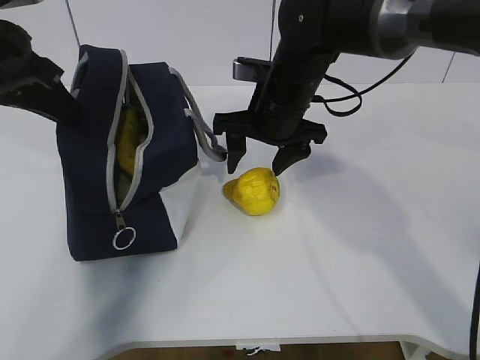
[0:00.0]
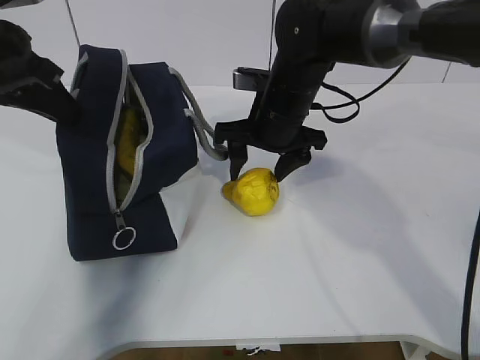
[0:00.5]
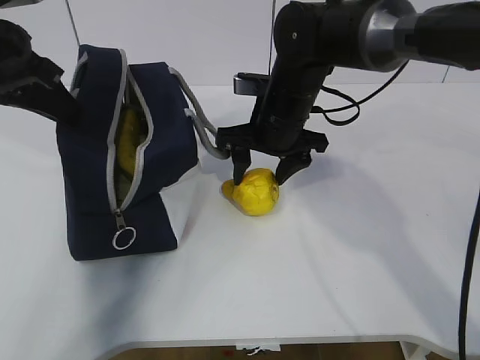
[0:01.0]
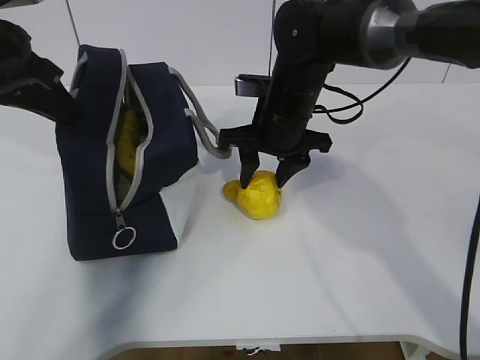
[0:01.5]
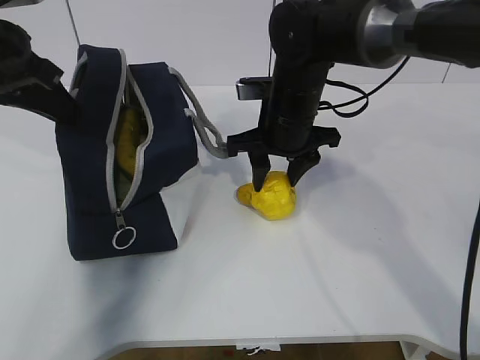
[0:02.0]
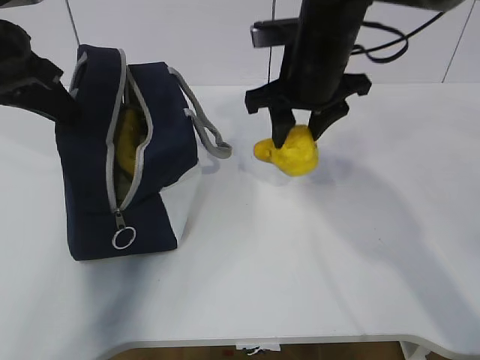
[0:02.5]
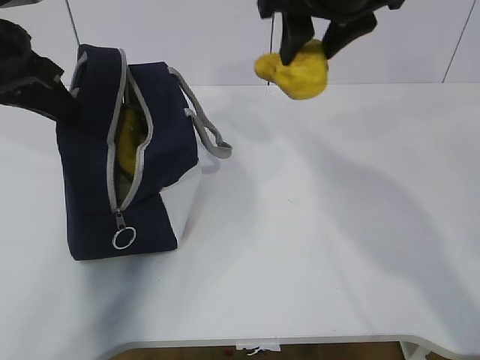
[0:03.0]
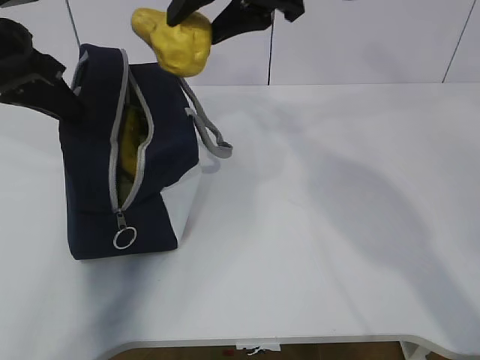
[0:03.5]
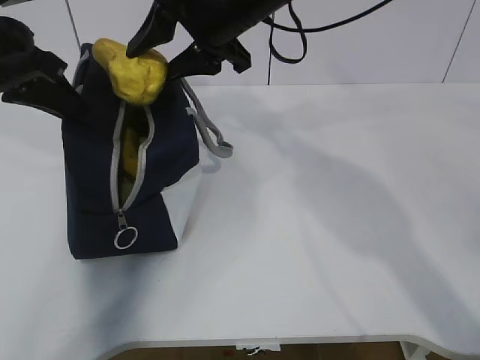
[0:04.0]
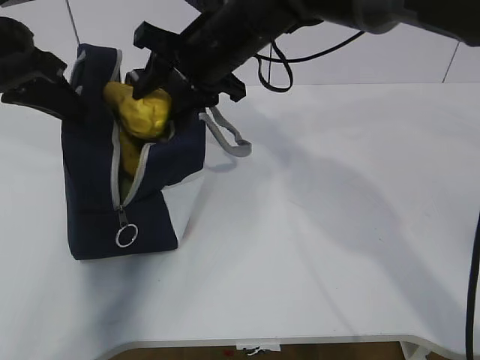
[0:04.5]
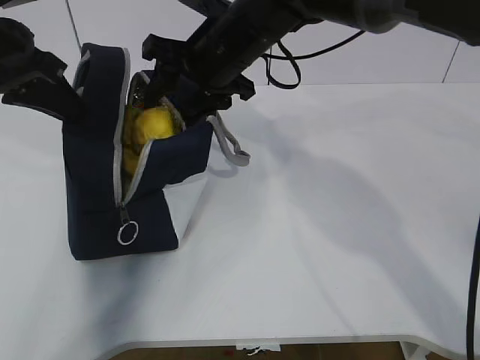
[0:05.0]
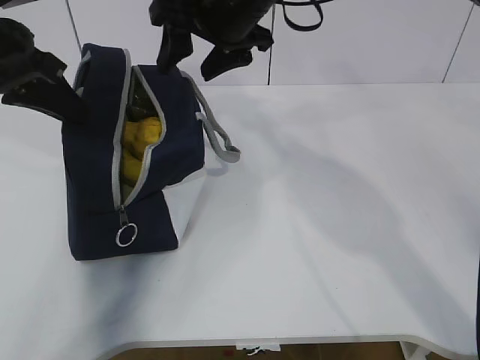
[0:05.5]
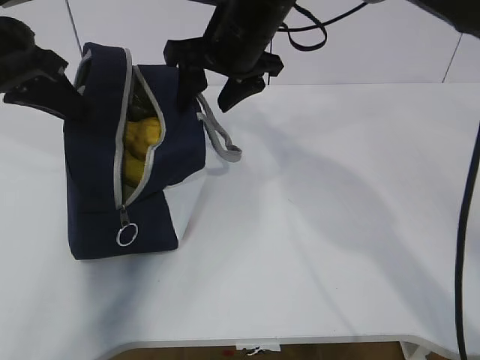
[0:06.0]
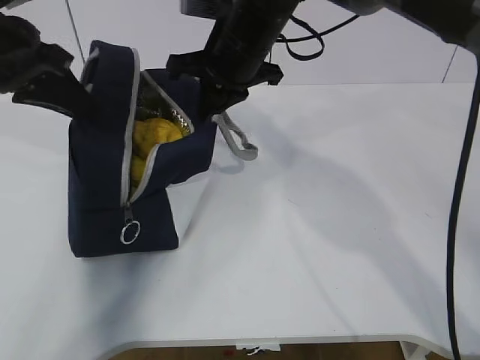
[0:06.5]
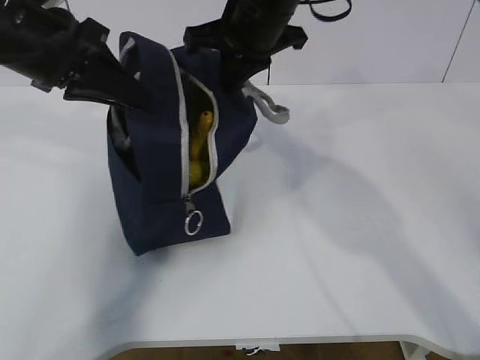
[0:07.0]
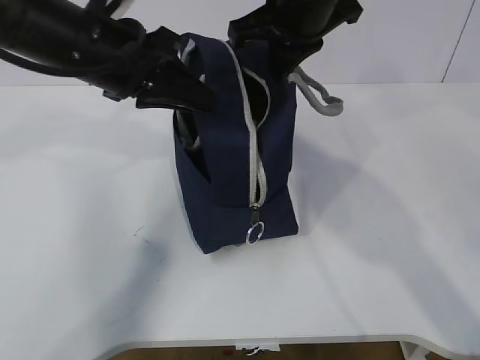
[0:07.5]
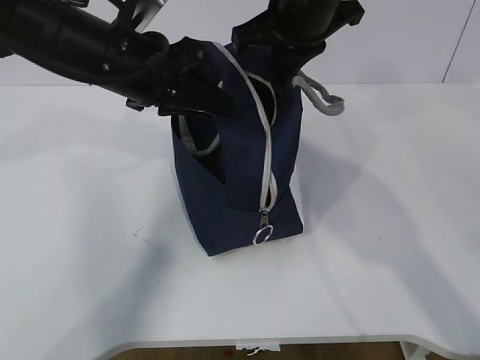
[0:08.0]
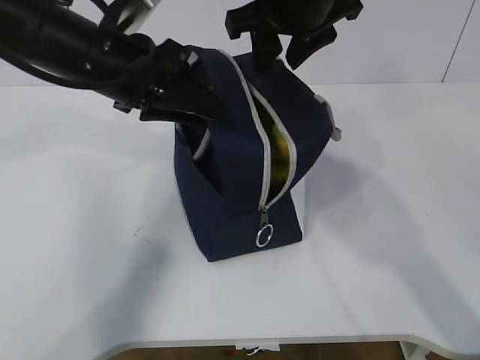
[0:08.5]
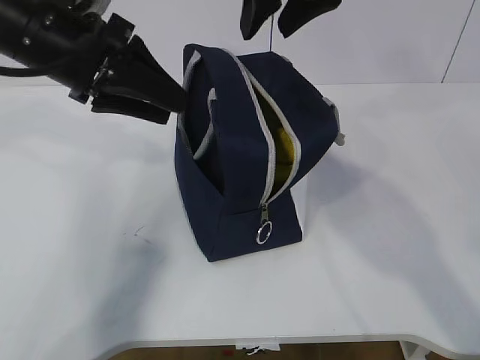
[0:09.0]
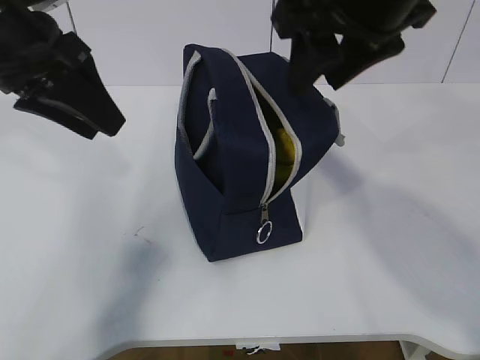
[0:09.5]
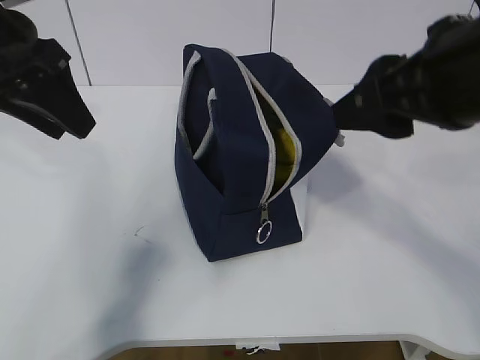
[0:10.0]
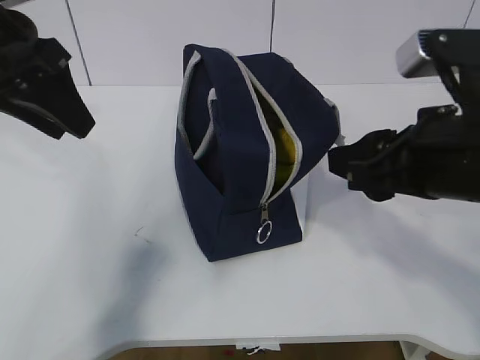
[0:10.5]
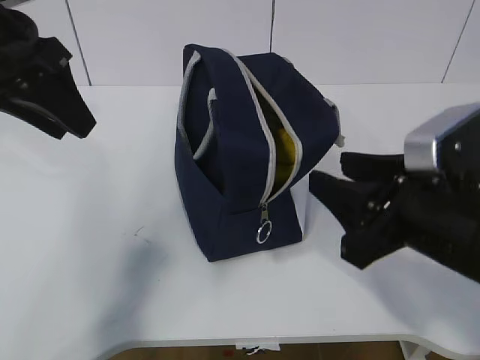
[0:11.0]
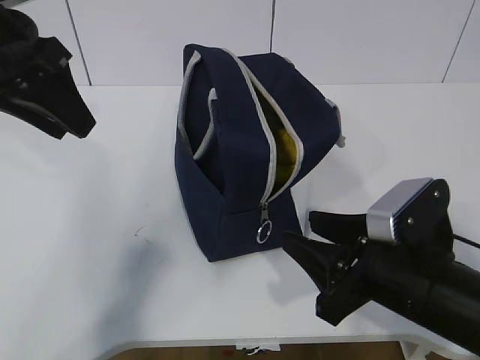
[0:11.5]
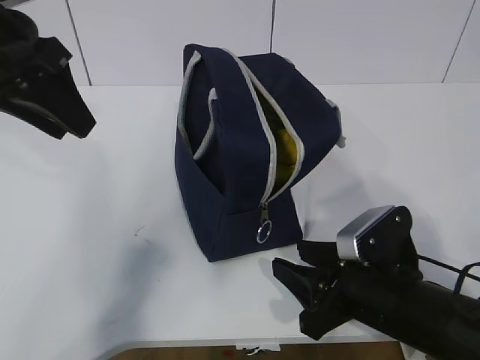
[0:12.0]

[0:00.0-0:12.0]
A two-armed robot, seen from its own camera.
Step, 0:02.0 to 0:05.0: Place the pear into the package with the right gripper.
0:00.0 to 0:02.0: The grippers make only small movements.
0:02.0 to 0:04.0: The right gripper shifts roughly 15 cm upward and to the left.
0:06.0 to 0:08.0: The right gripper is displaced to the right by approximately 5 cm, and closes; the left gripper goes approximately 10 cm to the right.
0:08.0 to 0:10.0: The right gripper shifts some 20 cm backward and to the right, and opens up; the left gripper travels to the left and upward by about 10 cm, and opens up.
0:10.0 to 0:12.0: The right gripper is displaced downward by approximately 25 cm.

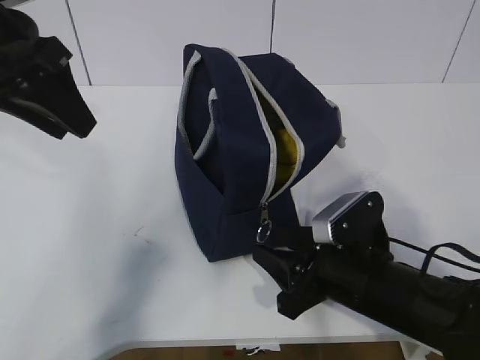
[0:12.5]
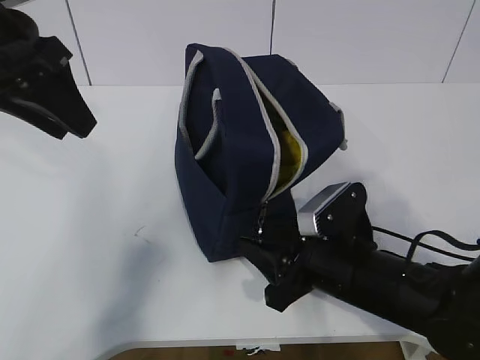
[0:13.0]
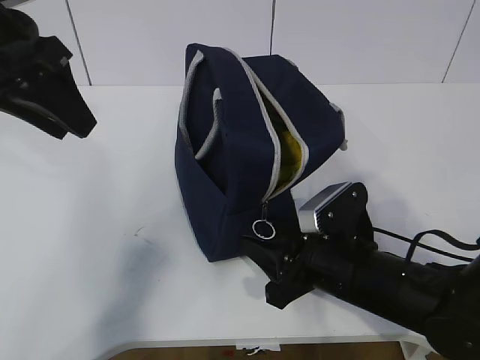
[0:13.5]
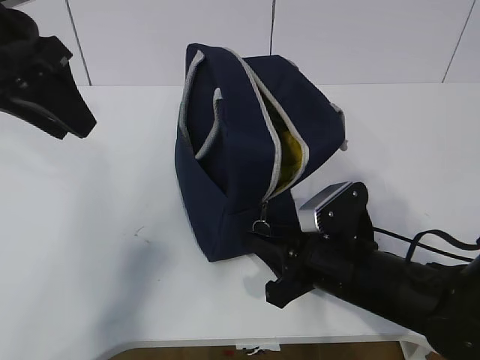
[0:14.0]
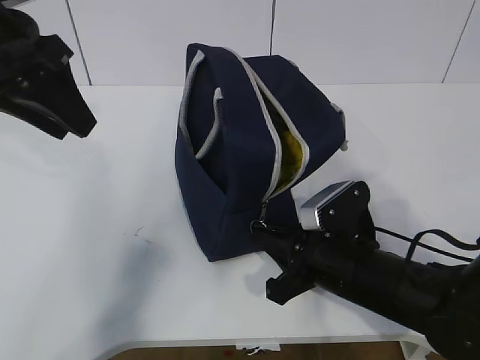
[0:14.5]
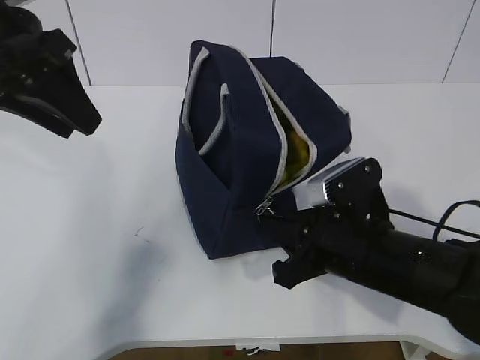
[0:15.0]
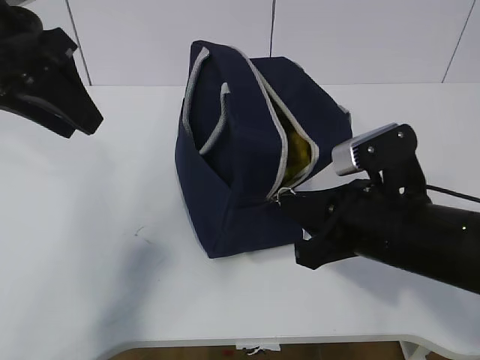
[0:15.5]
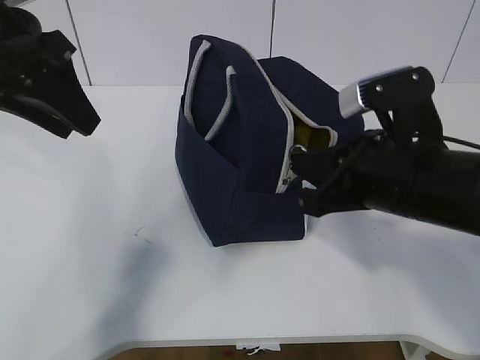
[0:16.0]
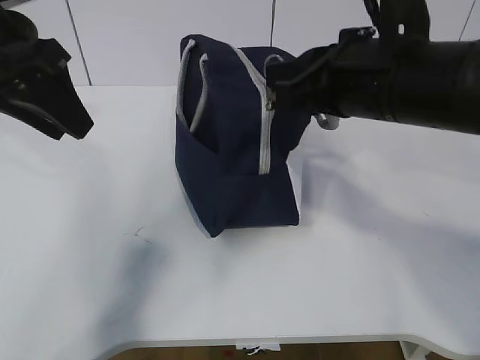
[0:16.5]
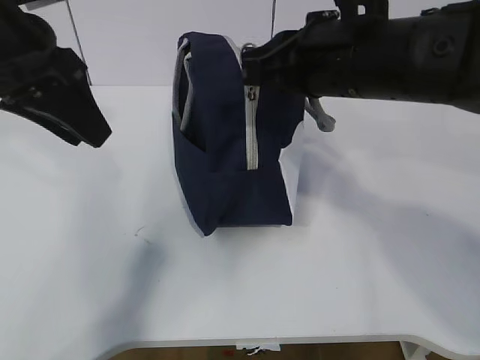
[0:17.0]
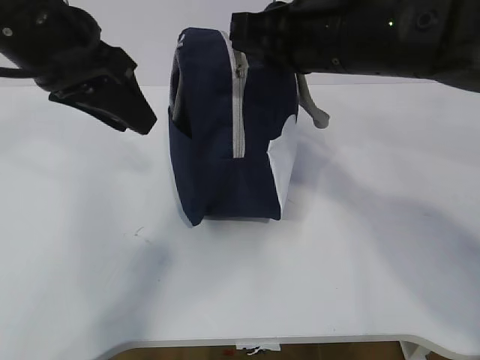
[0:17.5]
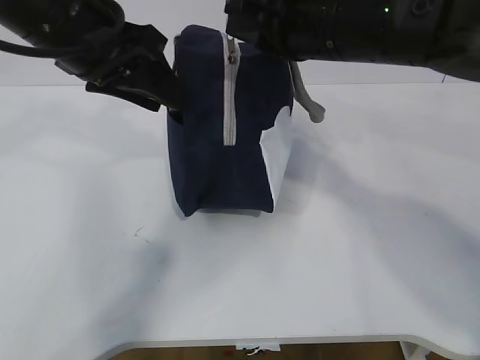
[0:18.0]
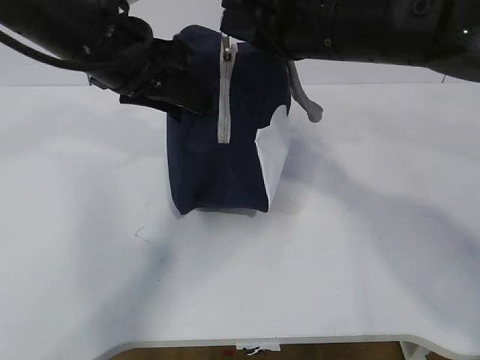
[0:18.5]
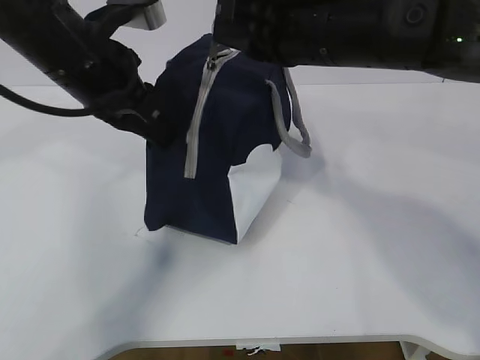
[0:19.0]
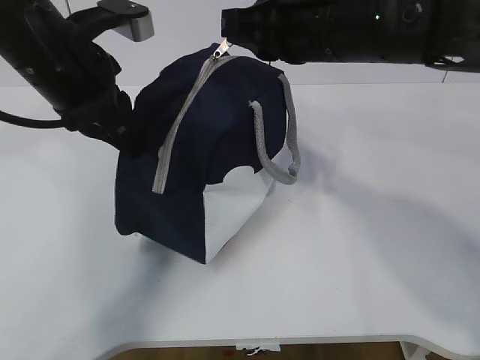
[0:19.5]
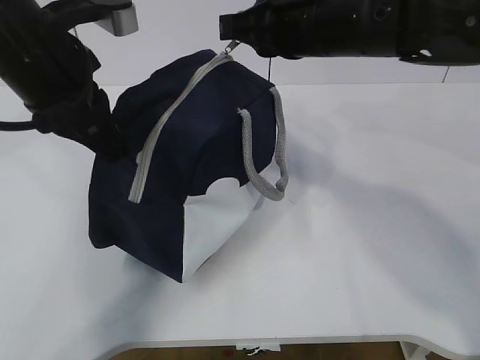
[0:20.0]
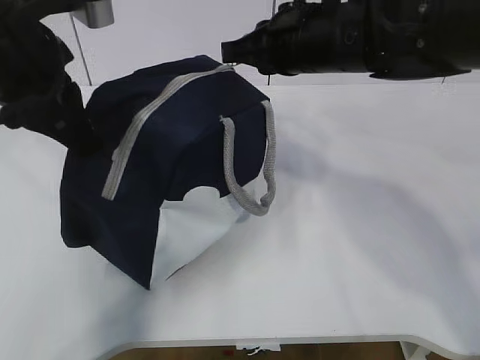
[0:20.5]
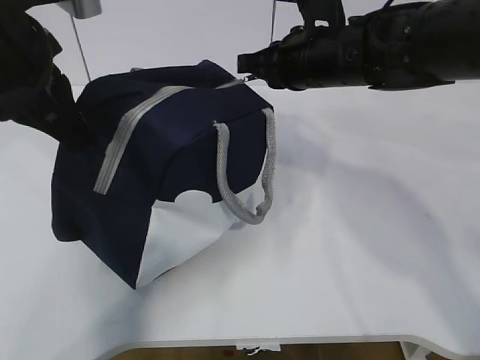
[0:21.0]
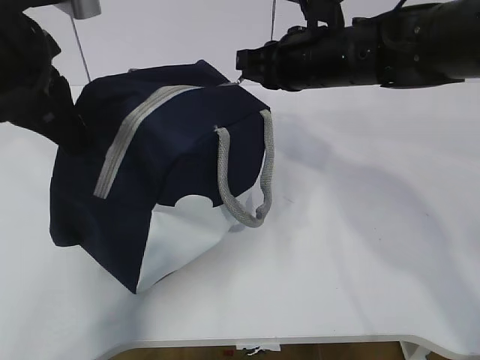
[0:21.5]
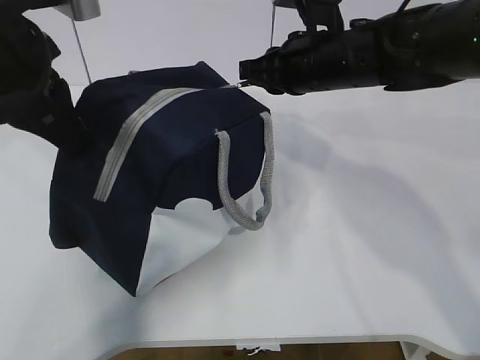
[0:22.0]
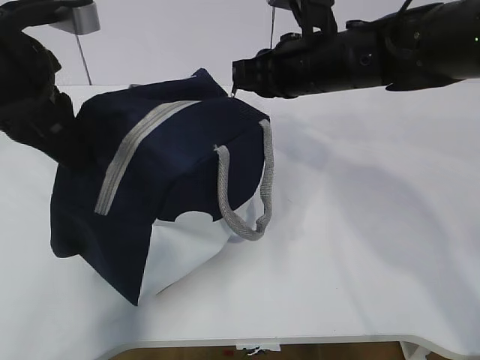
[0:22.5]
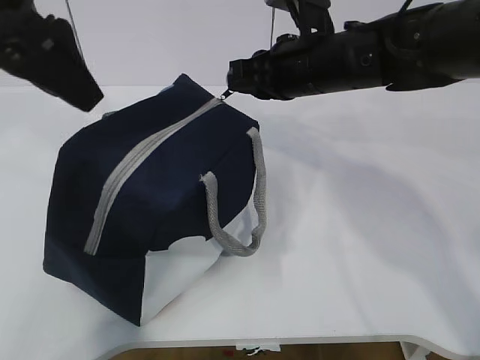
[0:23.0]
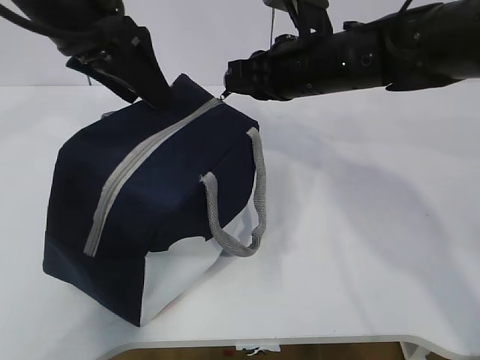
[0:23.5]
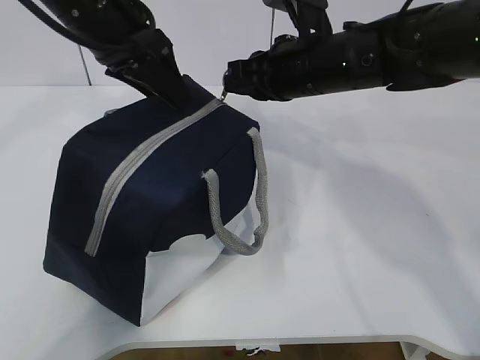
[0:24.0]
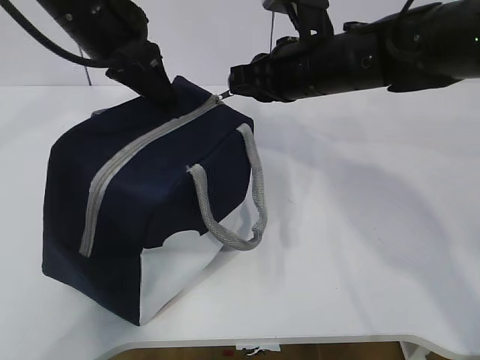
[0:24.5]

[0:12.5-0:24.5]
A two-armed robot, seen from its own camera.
0:12.5 to 0:14.5: The right gripper closes.
0:14.5 to 0:16.5: The right gripper goes approximately 20 cm upward.
0:16.5 to 0:18.5: The left gripper moves to the right, roughly 10 cm. The right gripper moves about 5 cm.
0:18.5 to 0:20.5: The right gripper is displaced forward by roughly 5 cm; the left gripper shifts some 5 cm to the left, and closes up.
0:20.5 to 0:22.5: The right gripper moves some 5 cm.
0:22.5 to 0:24.5: The left gripper heads forward, covering about 10 cm, and opens, then closes again.

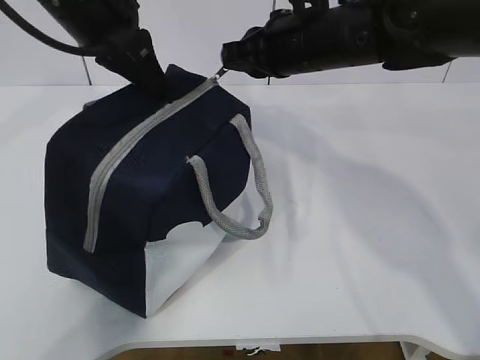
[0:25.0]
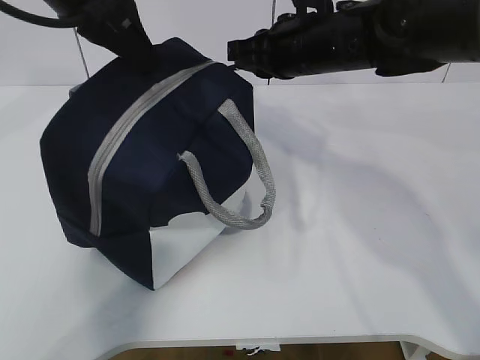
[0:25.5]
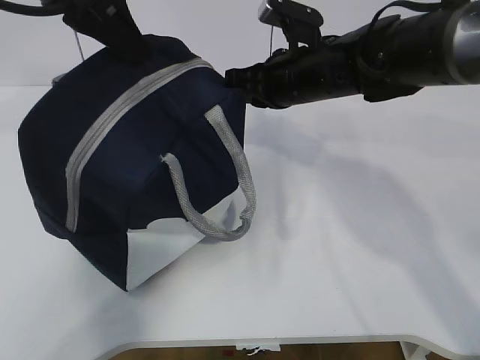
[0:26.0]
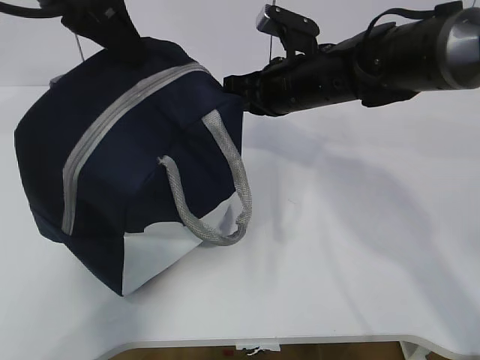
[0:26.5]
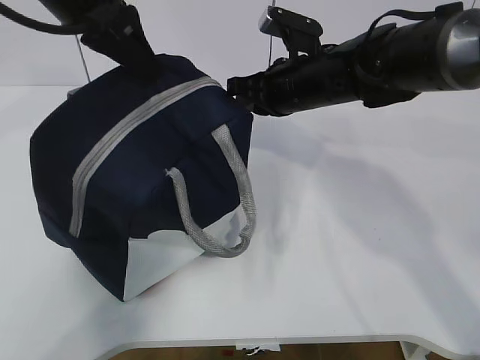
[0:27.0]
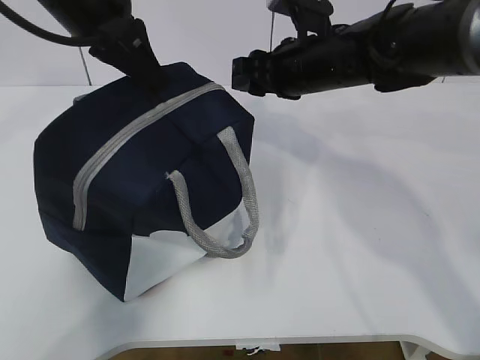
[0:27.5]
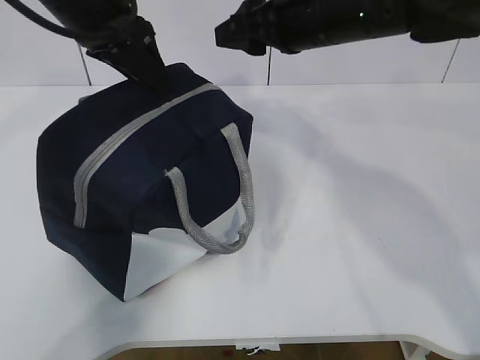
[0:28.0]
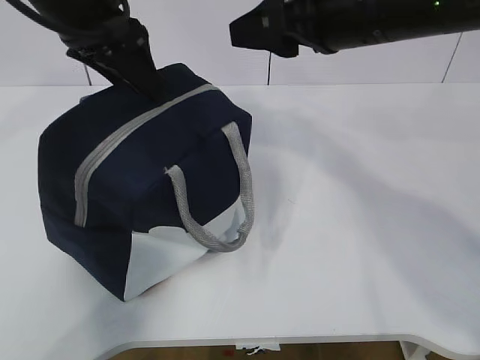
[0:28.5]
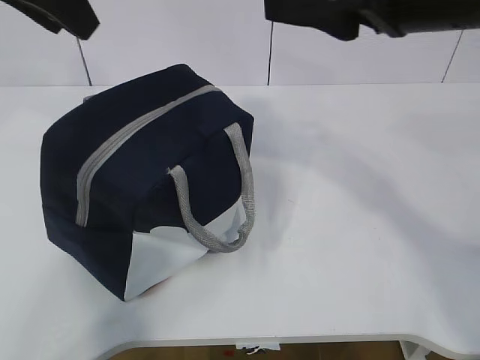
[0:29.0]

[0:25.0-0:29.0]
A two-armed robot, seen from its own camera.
Step, 0:25.0 to 0:27.5: zip up the zipper to close the bag.
0:25.0 to 0:27.0: The right gripper goes approximately 5 cm downward.
0:27.0 to 0:29.0: The left gripper shifts about 10 cm upward and backward, and opens up; the right gripper is displaced backward and upward by approximately 25 cm, and opens.
